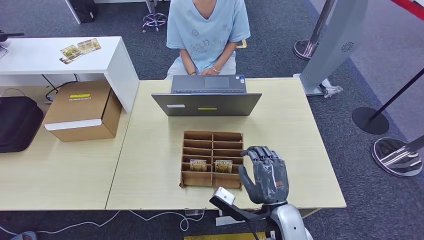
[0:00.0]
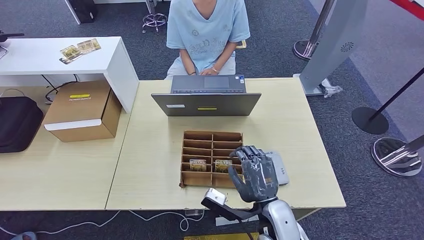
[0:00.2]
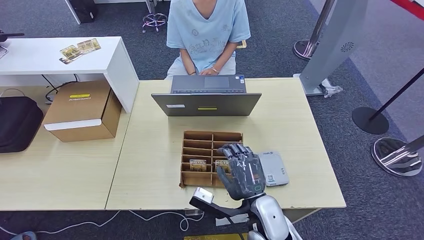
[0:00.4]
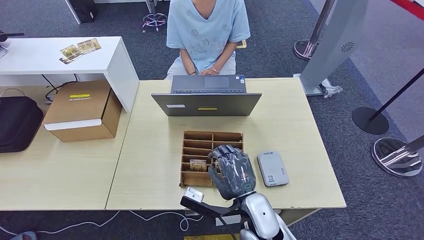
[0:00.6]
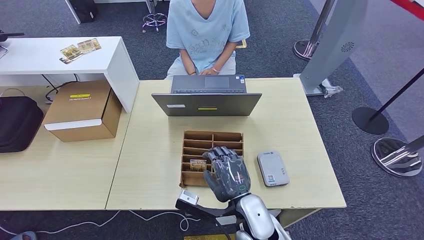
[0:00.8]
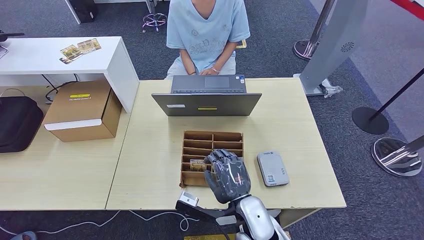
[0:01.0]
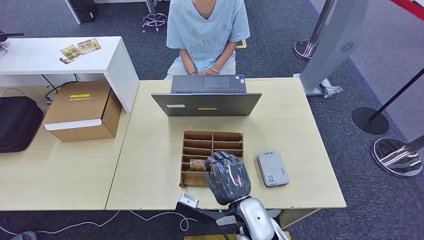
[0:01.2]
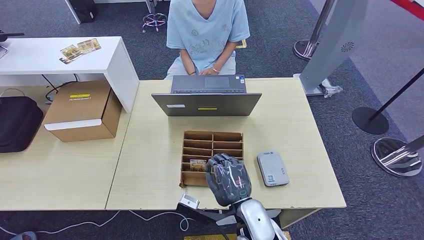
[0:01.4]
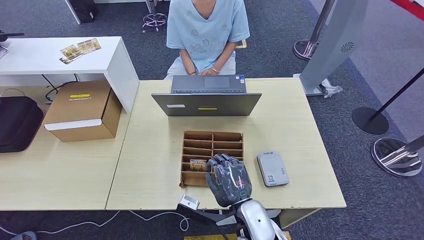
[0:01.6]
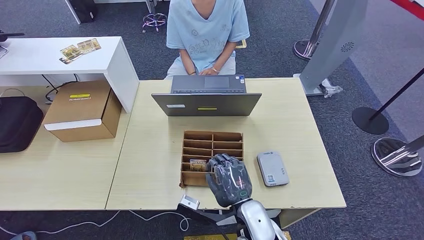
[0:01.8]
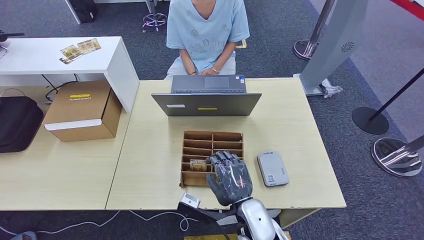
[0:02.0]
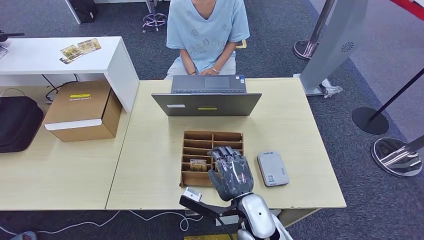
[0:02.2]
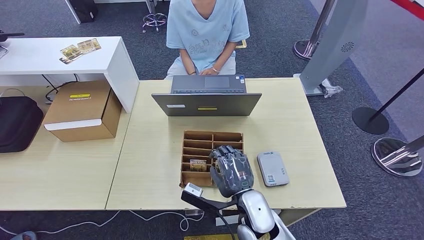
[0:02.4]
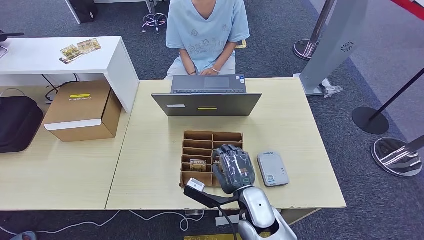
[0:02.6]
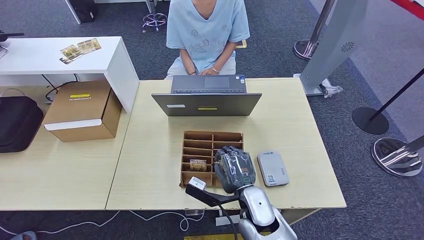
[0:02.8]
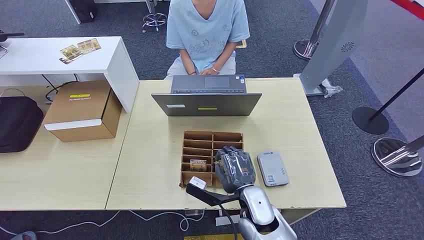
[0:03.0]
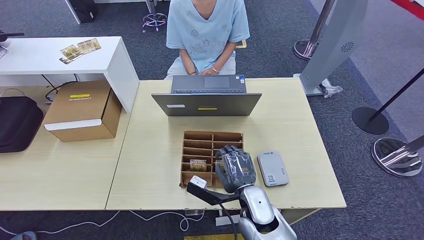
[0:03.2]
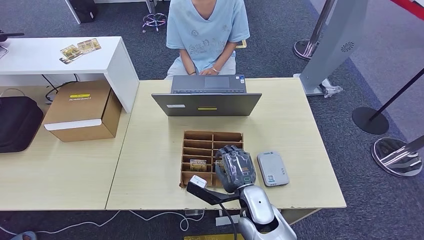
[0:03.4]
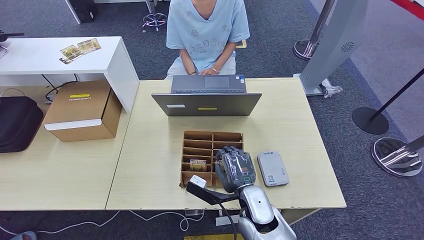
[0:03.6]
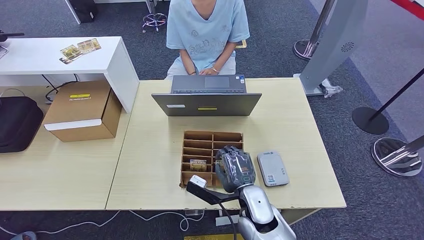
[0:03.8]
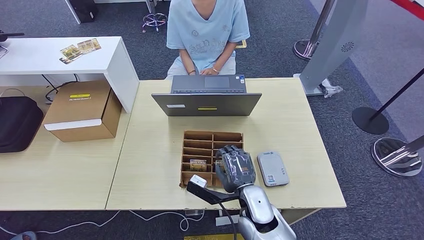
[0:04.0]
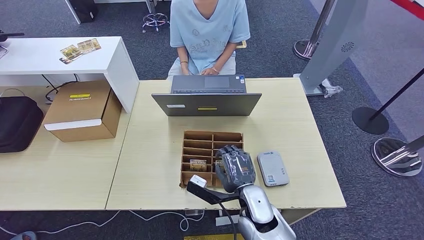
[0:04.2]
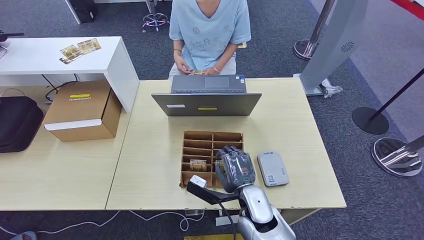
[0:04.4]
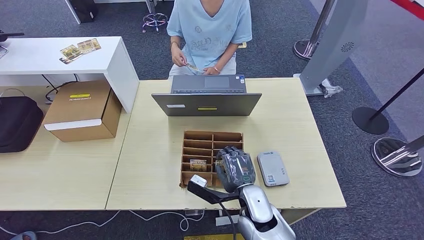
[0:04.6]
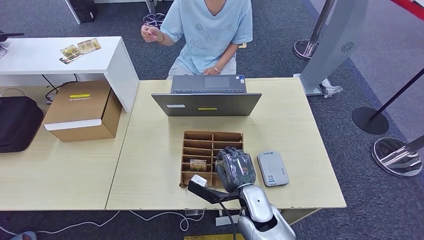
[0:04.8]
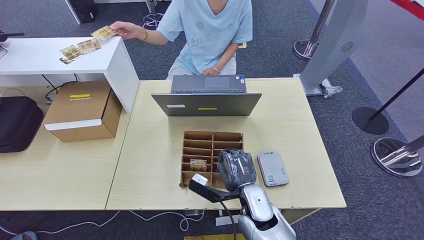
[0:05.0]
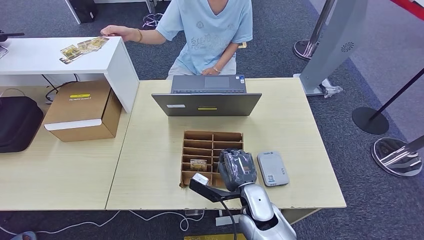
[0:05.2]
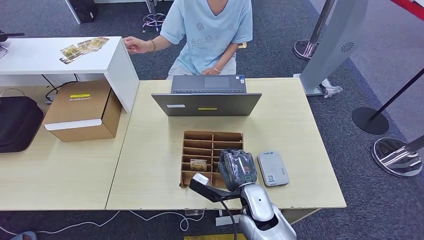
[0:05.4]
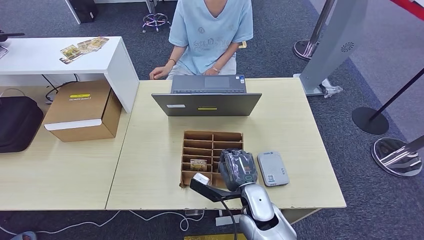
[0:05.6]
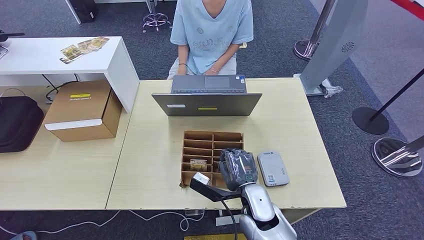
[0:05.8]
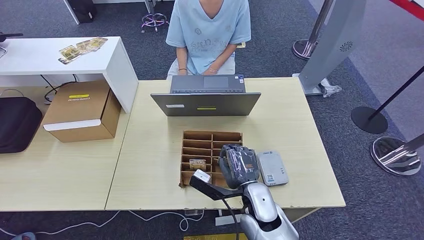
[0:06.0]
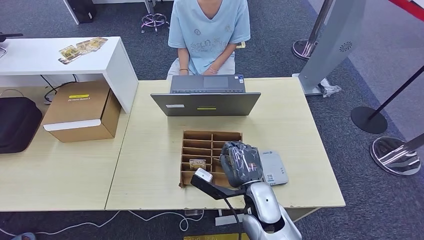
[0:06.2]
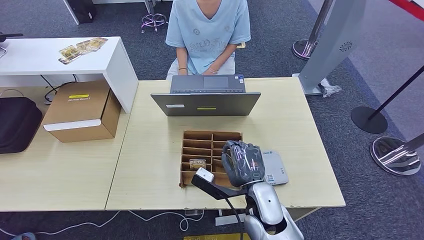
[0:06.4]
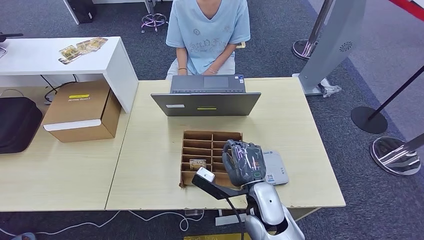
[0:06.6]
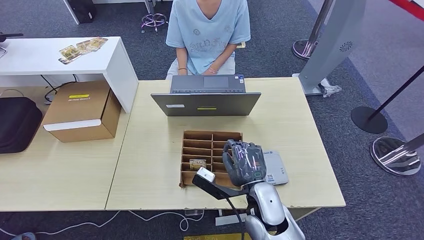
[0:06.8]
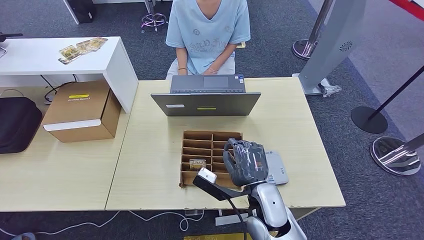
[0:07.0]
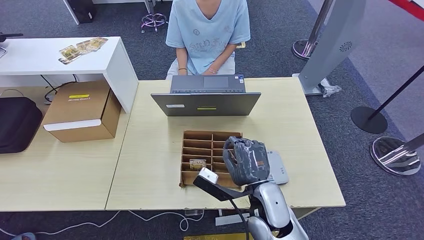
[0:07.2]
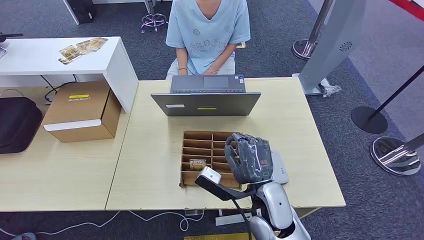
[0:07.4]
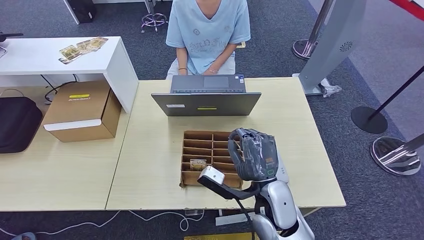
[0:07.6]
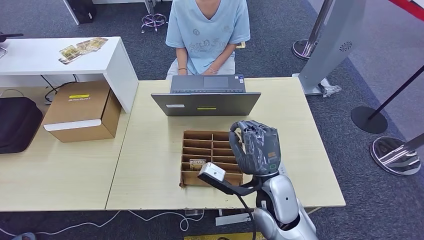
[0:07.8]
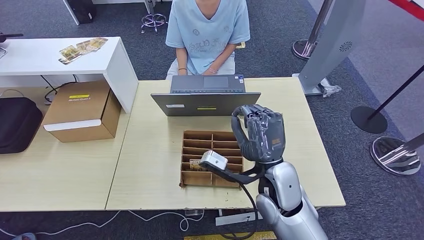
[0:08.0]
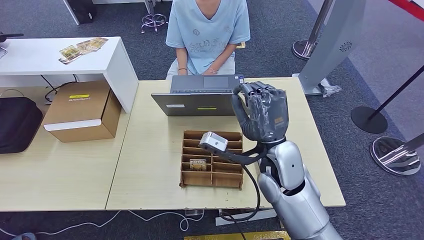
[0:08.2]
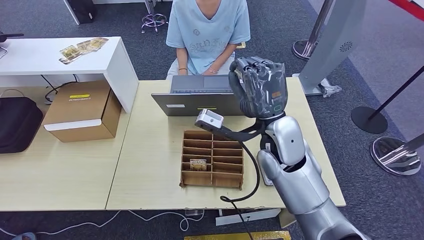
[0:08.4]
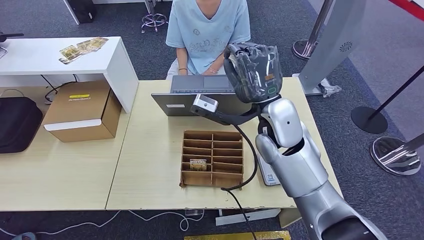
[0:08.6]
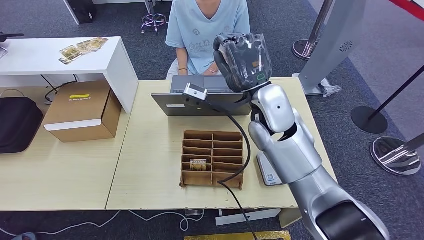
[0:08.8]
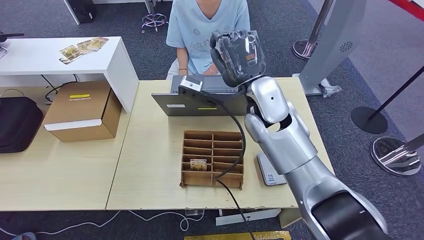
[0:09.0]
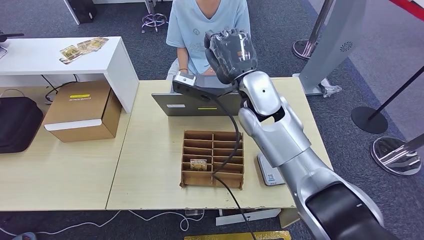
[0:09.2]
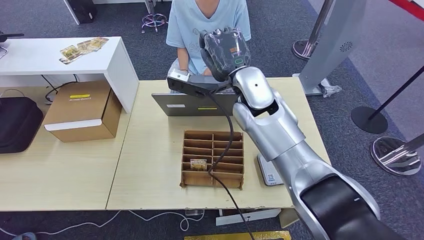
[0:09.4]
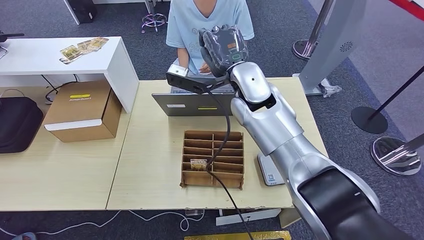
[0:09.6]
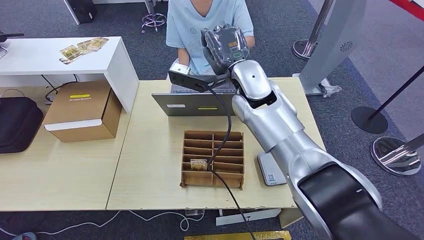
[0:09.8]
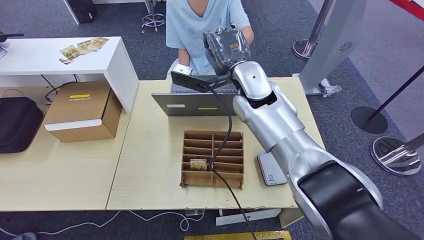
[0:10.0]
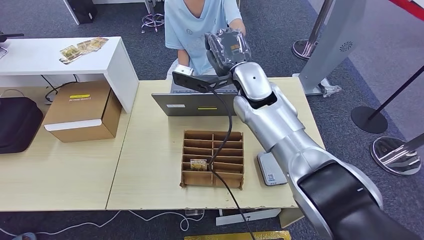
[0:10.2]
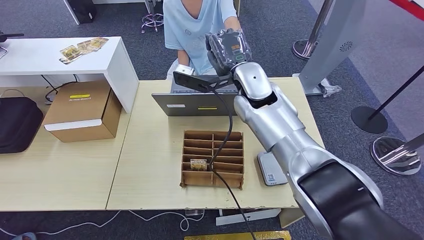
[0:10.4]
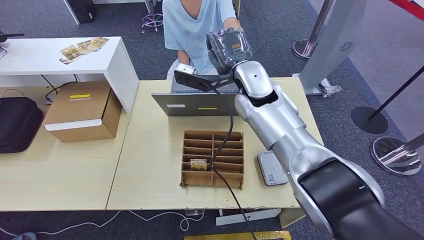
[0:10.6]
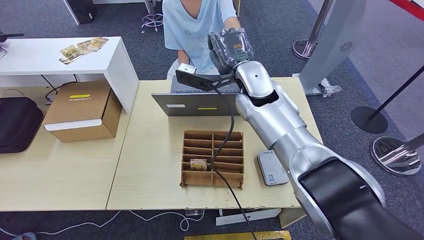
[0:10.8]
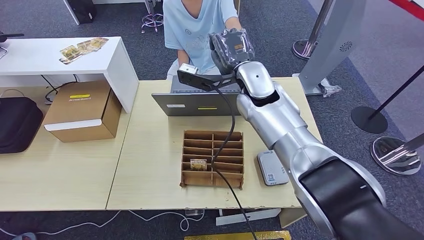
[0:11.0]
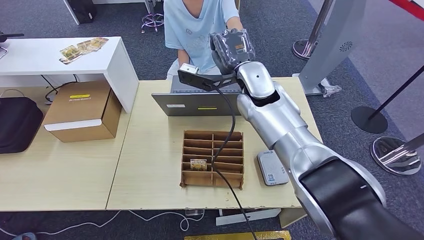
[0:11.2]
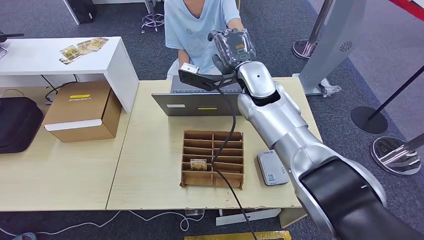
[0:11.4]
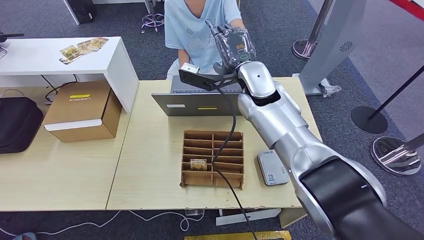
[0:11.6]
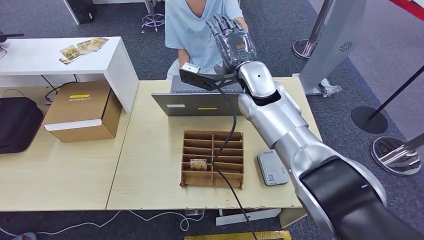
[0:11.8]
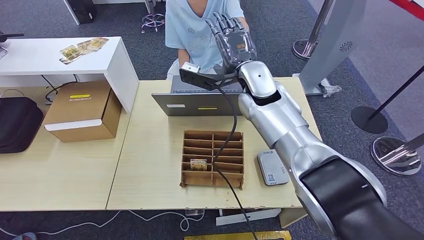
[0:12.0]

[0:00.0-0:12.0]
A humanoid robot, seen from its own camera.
Step, 0:00.0 to 0:07.2: Pick up the room key from the key card box.
0:00.0 to 0:01.6: The right hand moves to the left, about 5 cm.
0:01.6 to 0:03.0: The hands stay close to where they were, moving slightly.
0:03.0 to 0:04.4: The two hands keep their place.
0:06.0 to 0:07.6: The right hand shifts some 5 cm upward.
0:07.6 to 0:09.0: The right hand moves forward and upward, some 25 cm.
0:09.0 to 0:10.4: The right hand ends up roughly 5 cm from where it was.

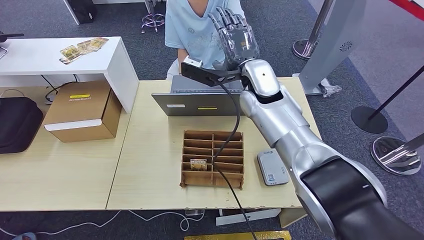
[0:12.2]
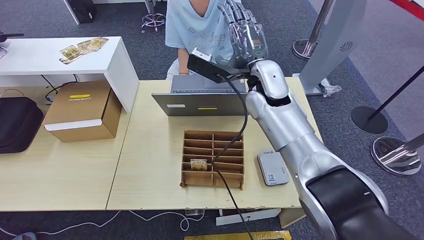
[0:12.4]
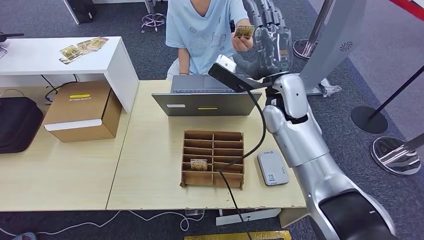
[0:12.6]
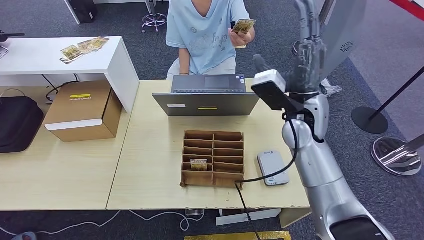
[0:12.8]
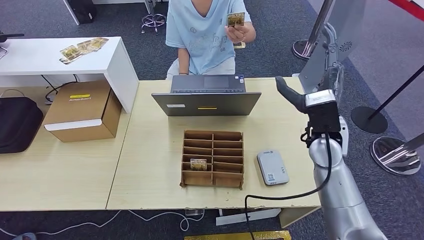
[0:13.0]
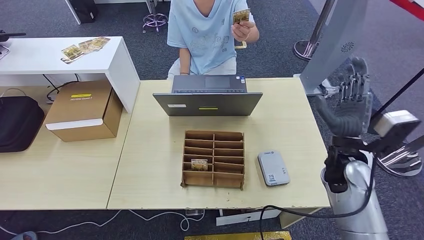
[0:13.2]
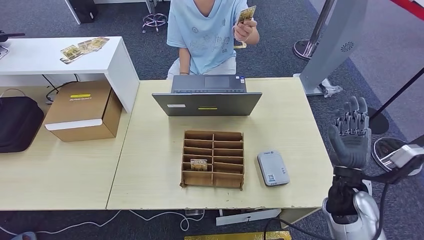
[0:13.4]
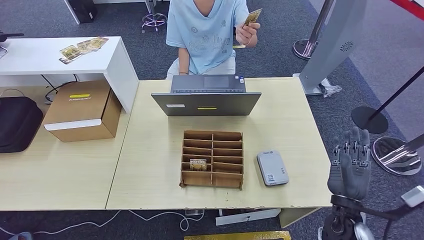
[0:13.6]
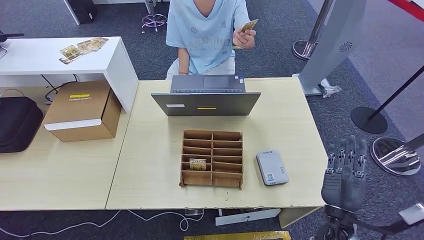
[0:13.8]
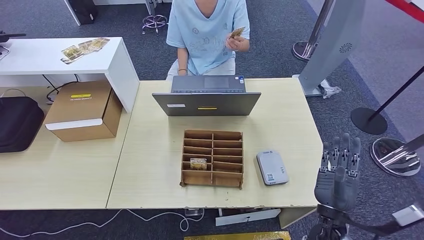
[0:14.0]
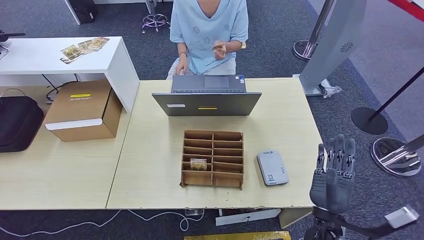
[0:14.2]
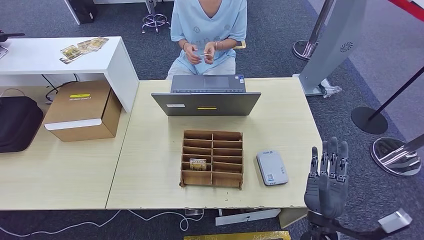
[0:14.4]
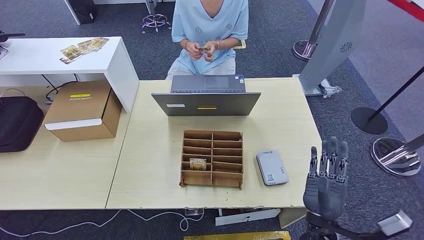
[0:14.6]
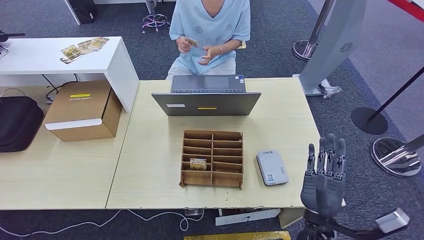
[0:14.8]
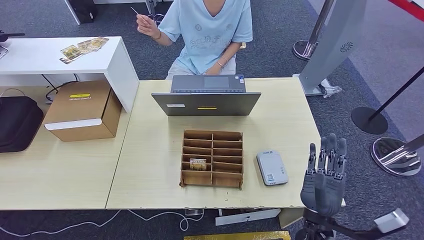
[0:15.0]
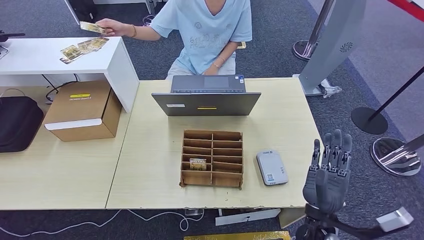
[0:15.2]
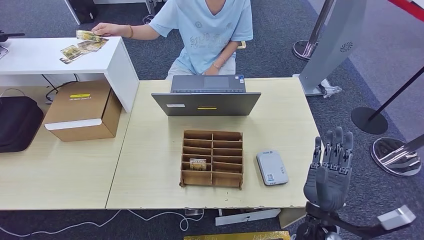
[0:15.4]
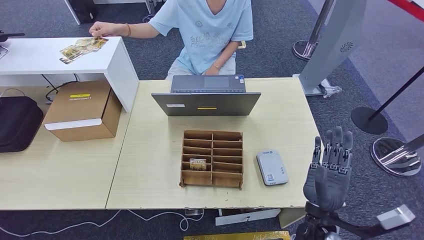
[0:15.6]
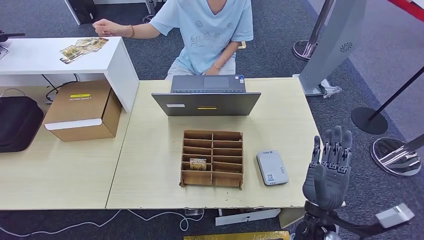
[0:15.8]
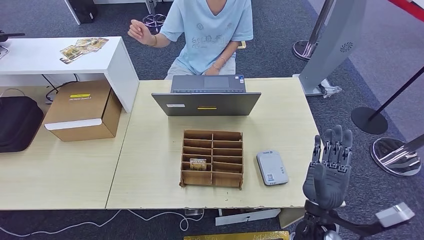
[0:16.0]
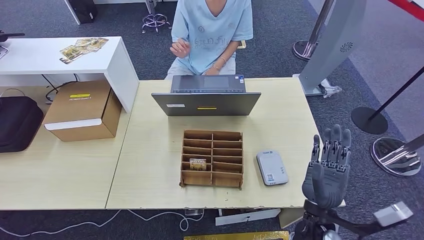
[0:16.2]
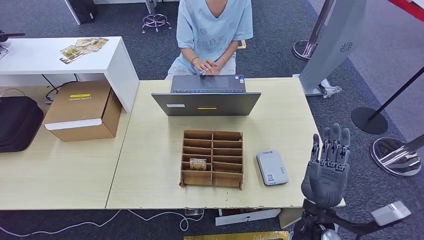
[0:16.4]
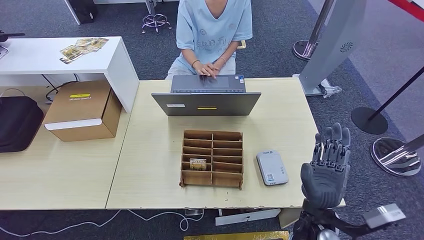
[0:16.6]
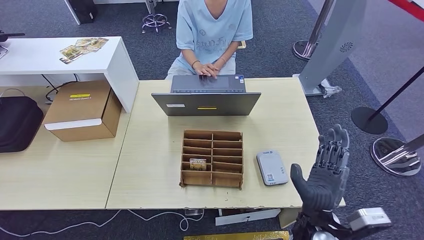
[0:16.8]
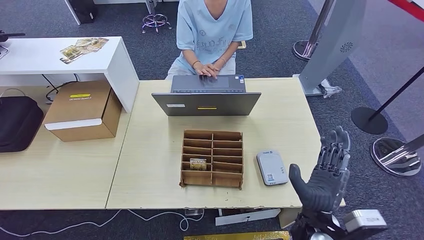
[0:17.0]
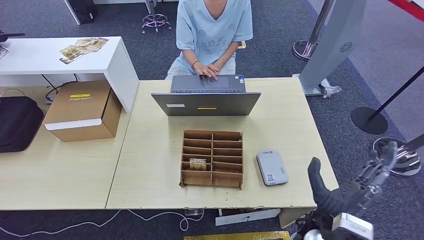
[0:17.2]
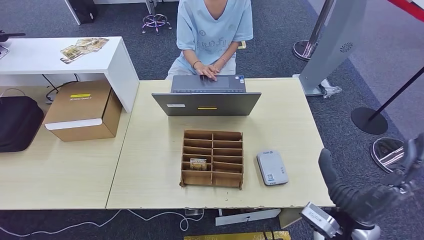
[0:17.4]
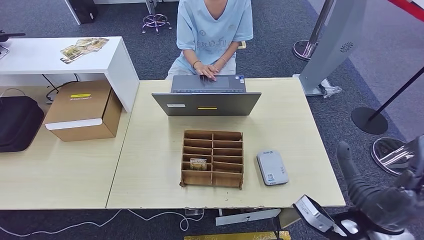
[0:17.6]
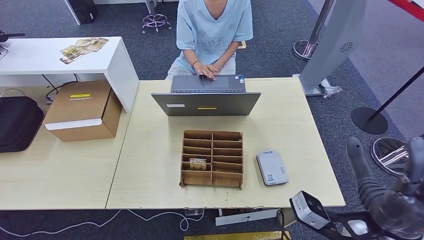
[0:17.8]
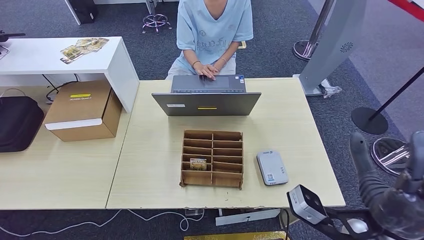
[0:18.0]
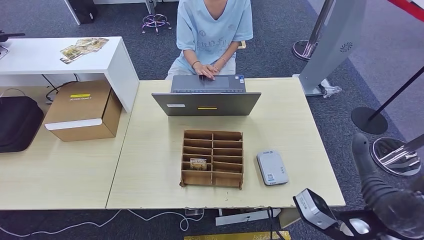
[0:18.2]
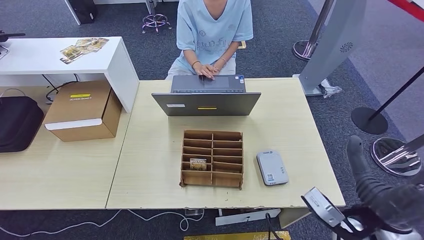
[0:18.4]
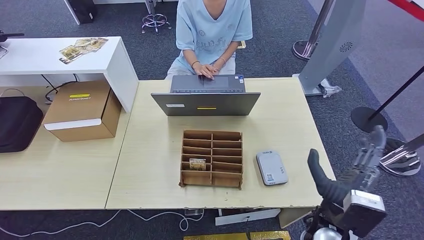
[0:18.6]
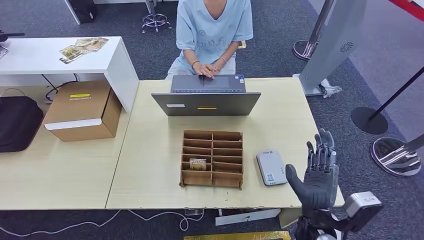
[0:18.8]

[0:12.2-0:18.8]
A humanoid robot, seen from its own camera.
Step, 0:12.2 to 0:18.0: Hand the room key to the person.
0:12.2 to 0:13.8: The right hand travels backward, downward and to the right by approximately 40 cm.
0:13.8 to 0:15.4: The left hand moves forward, roughly 5 cm. The right hand shifts some 5 cm to the left.
0:17.2 to 0:18.8: The right hand moves approximately 10 cm upward and comes back.
